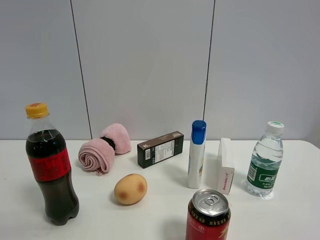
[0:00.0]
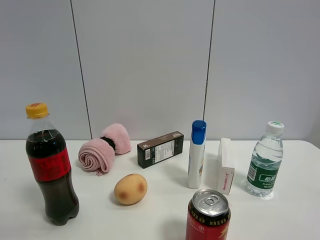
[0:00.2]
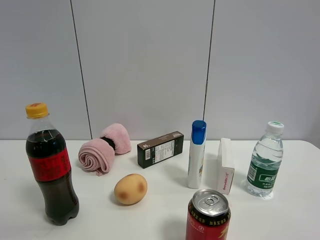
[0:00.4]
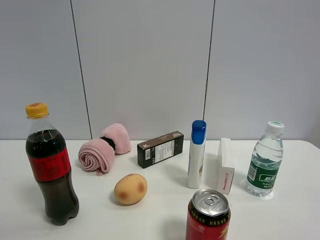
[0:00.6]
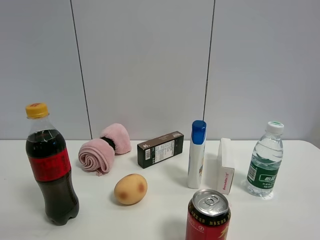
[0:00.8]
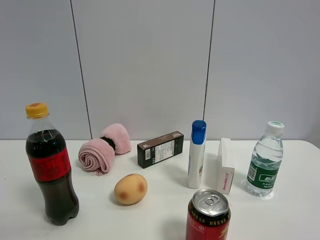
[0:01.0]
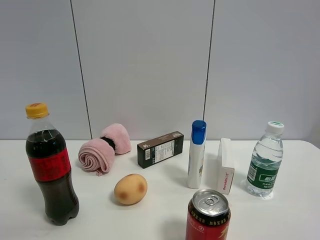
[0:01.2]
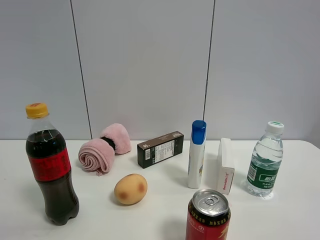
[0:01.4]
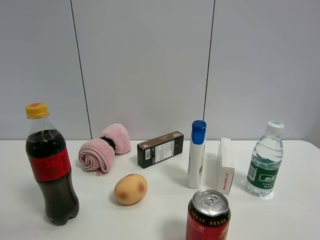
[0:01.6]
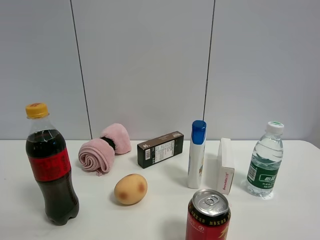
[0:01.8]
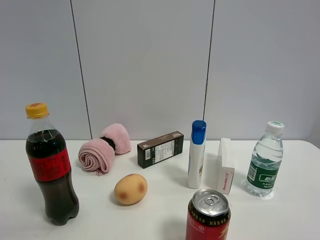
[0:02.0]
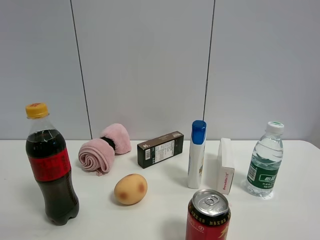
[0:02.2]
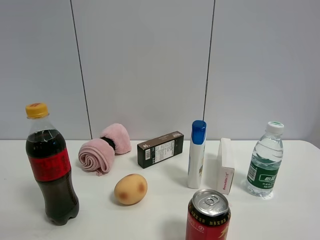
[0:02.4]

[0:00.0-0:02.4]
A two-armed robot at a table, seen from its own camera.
Task of the whole recording: the gripper move the object.
0:01.2 to 0:02.4: Neither gripper changes place.

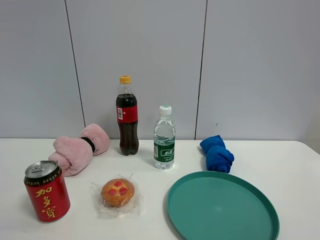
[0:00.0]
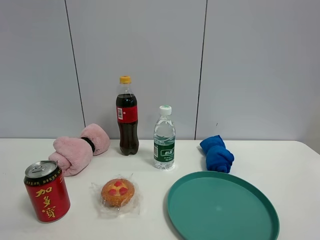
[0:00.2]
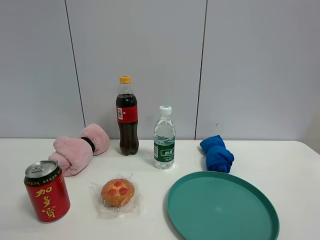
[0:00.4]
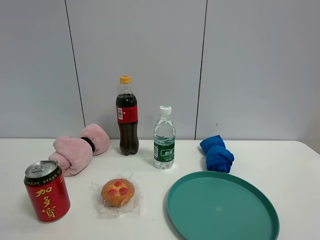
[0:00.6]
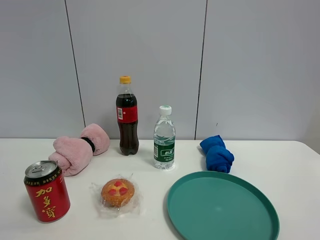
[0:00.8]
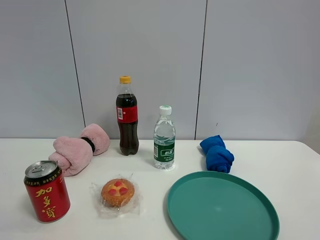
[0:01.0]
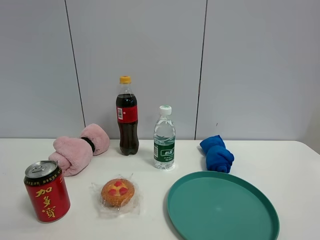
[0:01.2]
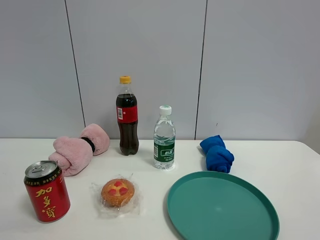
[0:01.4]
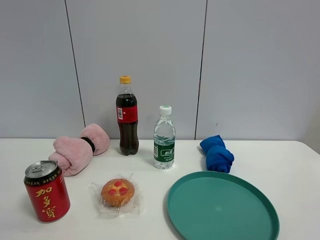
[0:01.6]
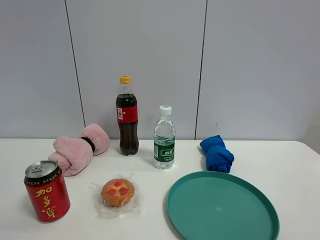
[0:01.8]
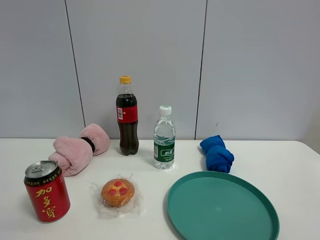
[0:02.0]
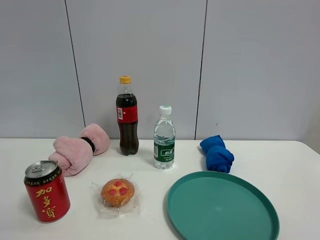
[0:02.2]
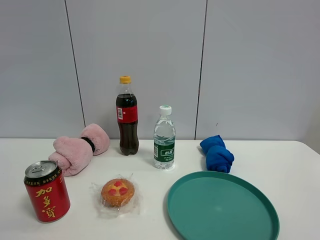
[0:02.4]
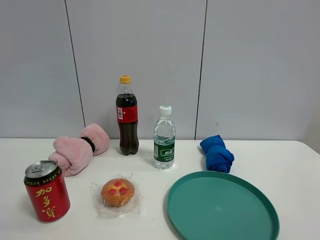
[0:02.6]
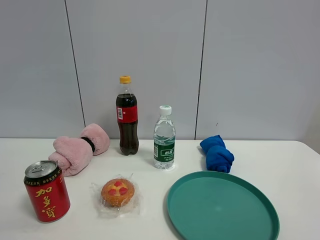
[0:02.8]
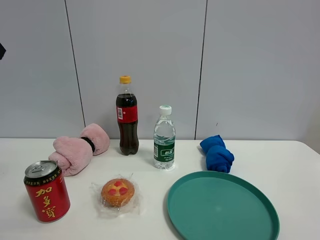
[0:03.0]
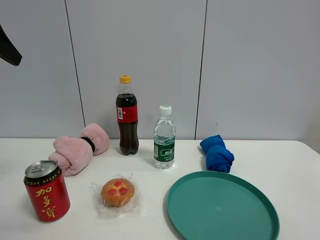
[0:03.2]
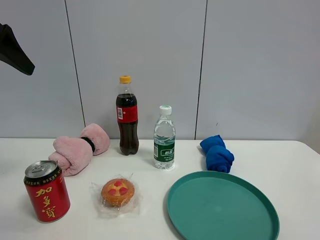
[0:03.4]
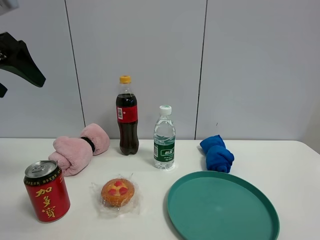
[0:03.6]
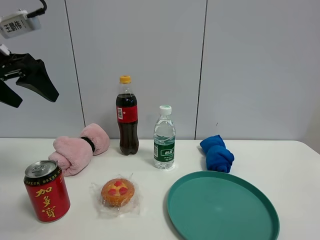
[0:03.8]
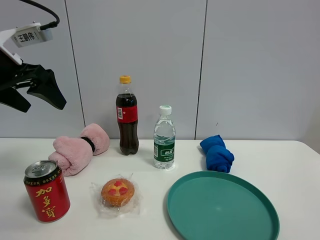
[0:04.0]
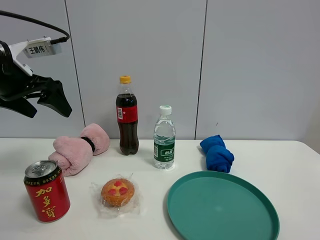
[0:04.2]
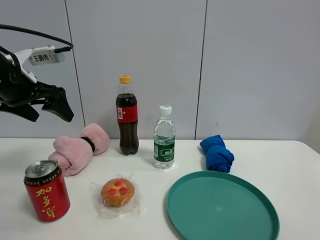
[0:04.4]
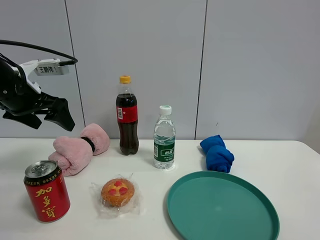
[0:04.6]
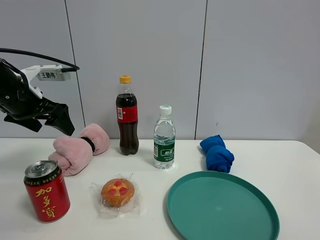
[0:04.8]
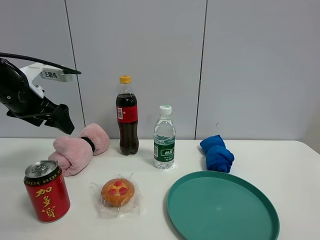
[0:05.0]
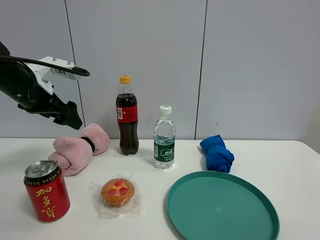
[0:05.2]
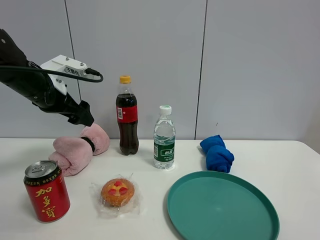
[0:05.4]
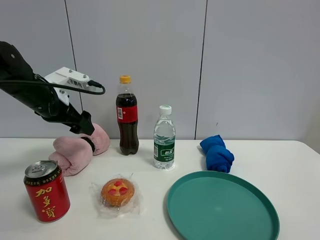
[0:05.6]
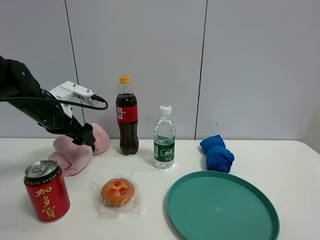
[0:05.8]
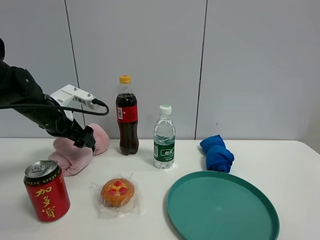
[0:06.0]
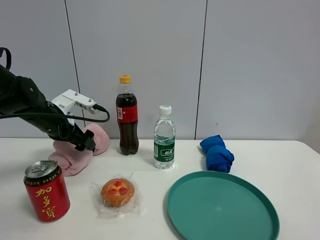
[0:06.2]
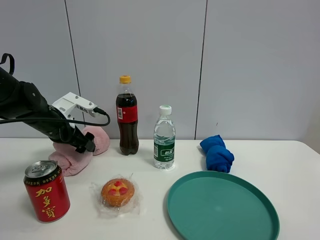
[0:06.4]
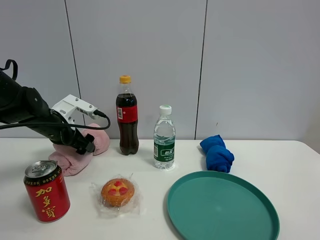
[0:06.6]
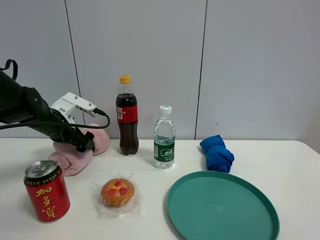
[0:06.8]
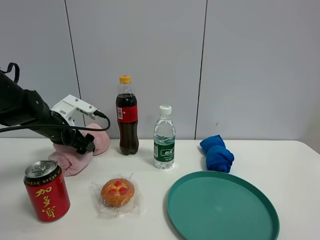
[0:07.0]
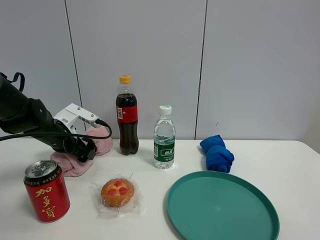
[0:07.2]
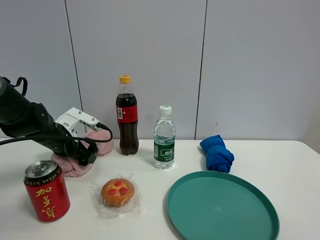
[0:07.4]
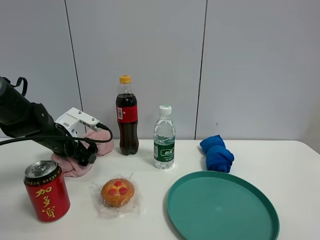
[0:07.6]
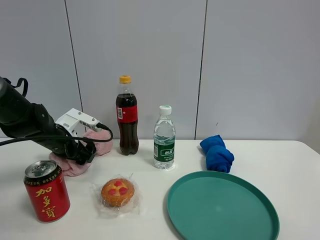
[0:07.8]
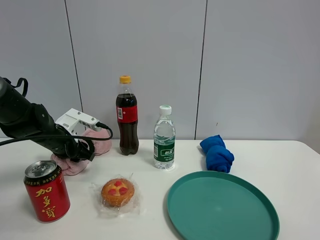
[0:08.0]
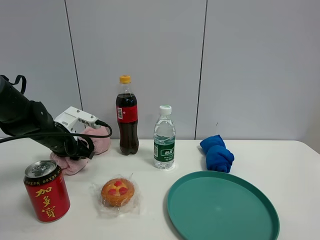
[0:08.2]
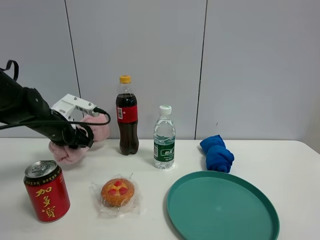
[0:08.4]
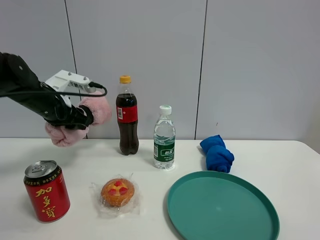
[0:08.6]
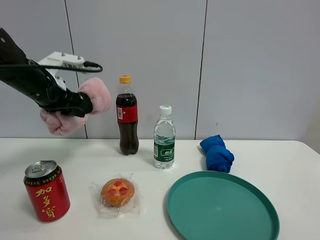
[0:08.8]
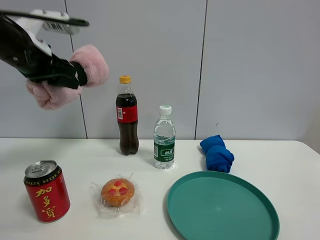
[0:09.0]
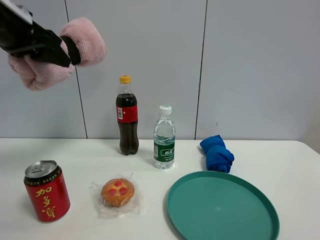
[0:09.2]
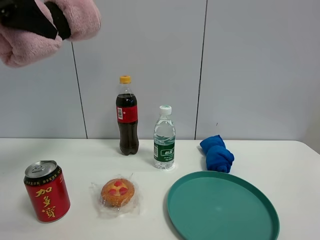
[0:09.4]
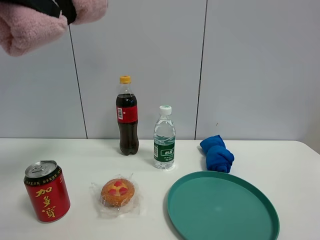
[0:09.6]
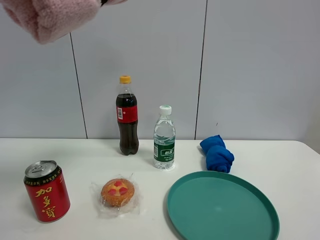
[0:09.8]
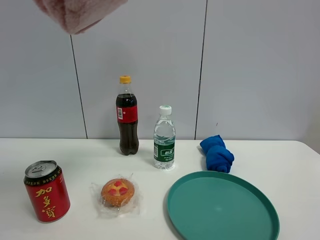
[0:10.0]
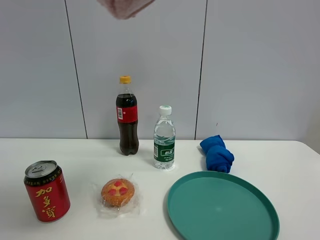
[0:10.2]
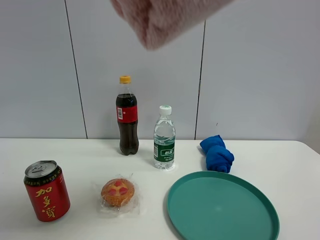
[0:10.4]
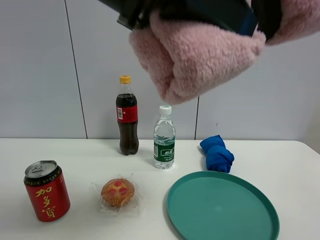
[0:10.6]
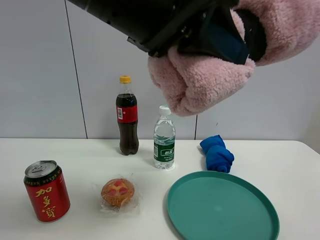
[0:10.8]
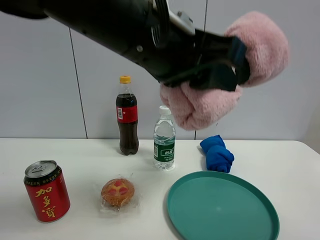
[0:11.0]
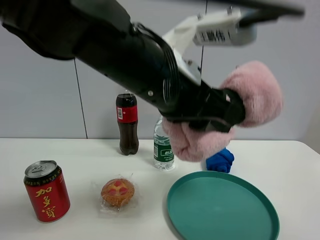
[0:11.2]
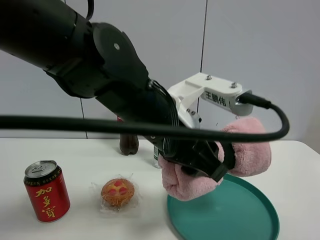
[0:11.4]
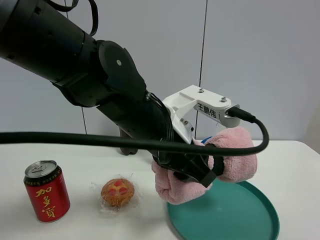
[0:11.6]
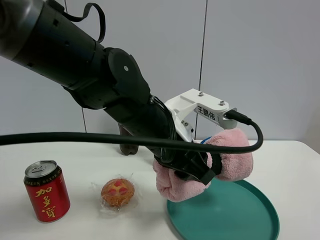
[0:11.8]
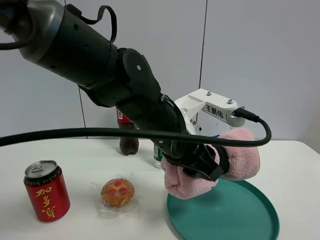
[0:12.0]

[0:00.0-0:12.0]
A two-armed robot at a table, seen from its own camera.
Task of the whole recording: the gripper move the object.
Step, 0:00.0 to 0:08.0: Grasp the pink towel with the left gripper.
0:00.0 to 0:01.6: Neither gripper changes place.
0:03.0 to 0:04.4: The left gripper heads downward and forward, covering roughly 15 cm.
0:04.4 to 0:06.0: The left gripper moves downward and forward, some 10 cm.
0:06.0 to 0:07.6: The left gripper goes some 5 cm downward.
0:07.6 to 0:09.0: The left gripper goes some 20 cm upward, and closes its fingers.
0:09.0 to 0:10.4: The left gripper heads backward, to the right and upward, covering approximately 25 cm.
0:10.4 to 0:12.0: The left gripper moves downward and forward, approximately 25 cm.

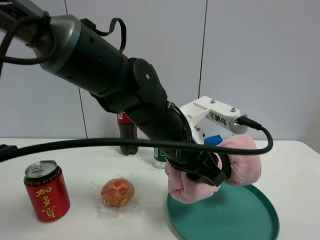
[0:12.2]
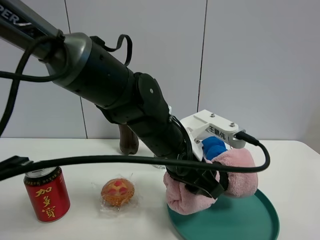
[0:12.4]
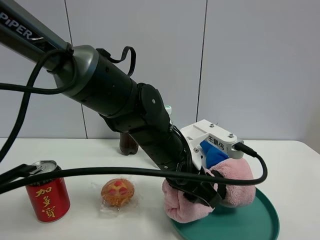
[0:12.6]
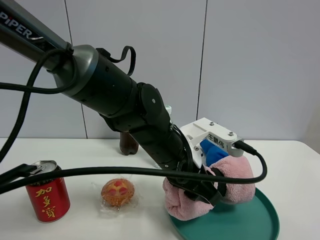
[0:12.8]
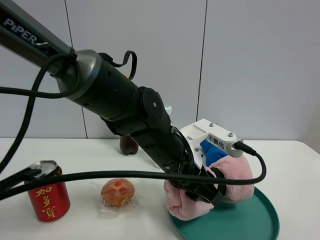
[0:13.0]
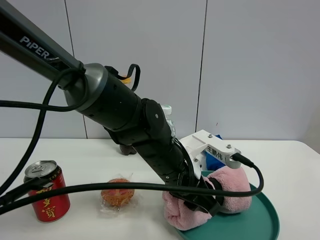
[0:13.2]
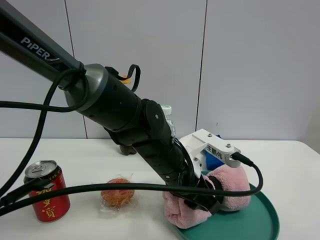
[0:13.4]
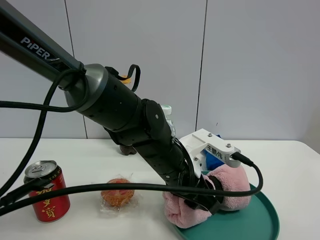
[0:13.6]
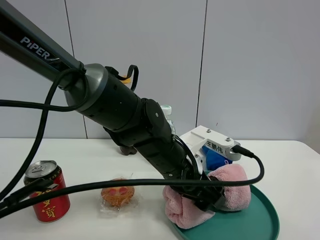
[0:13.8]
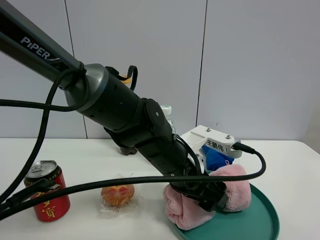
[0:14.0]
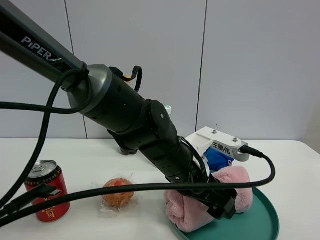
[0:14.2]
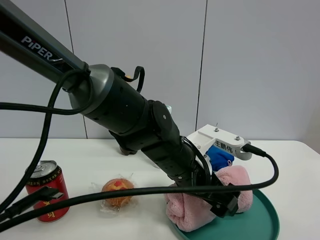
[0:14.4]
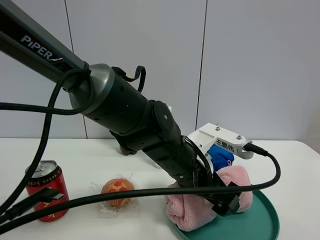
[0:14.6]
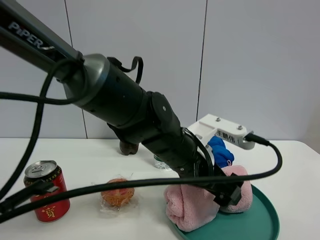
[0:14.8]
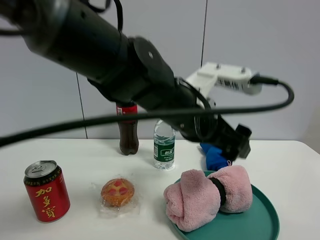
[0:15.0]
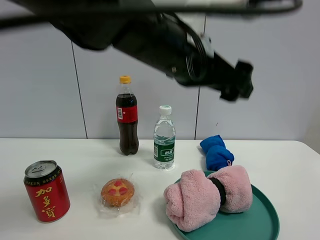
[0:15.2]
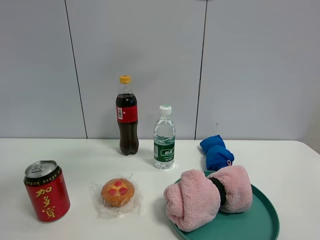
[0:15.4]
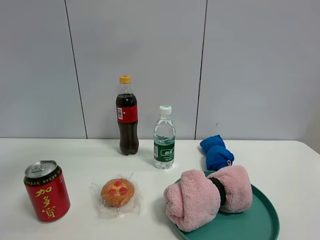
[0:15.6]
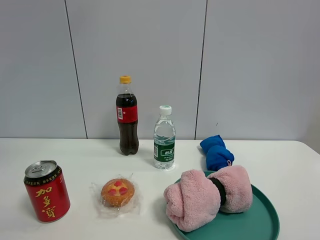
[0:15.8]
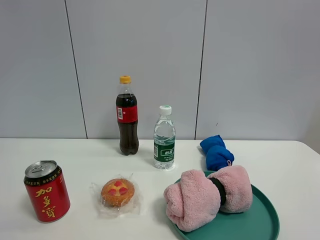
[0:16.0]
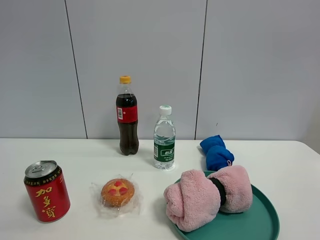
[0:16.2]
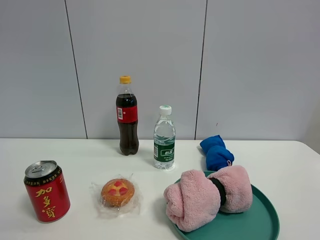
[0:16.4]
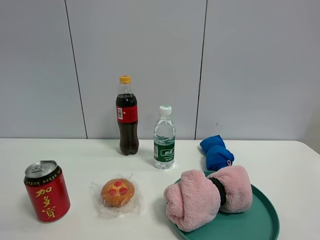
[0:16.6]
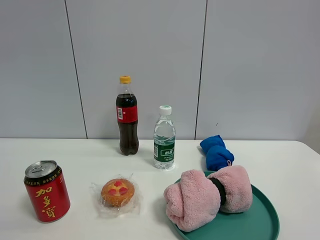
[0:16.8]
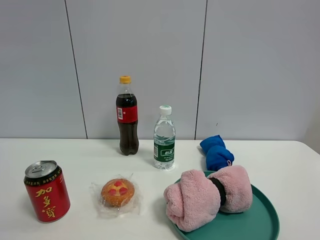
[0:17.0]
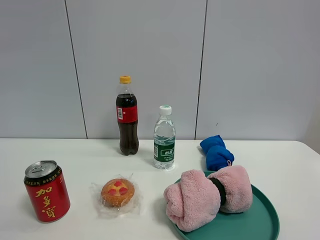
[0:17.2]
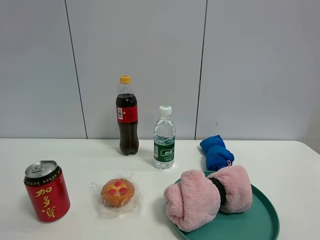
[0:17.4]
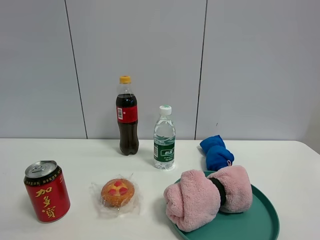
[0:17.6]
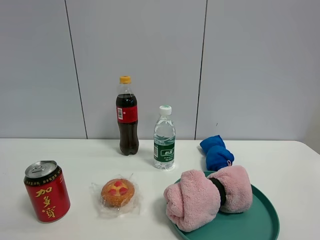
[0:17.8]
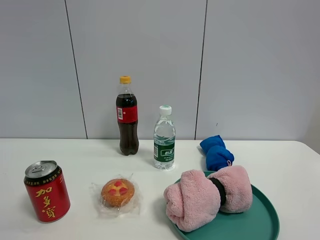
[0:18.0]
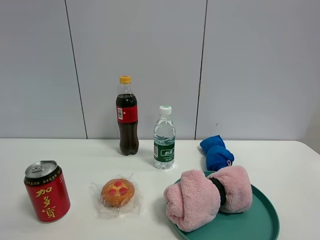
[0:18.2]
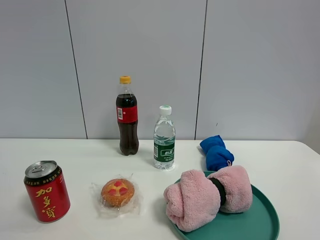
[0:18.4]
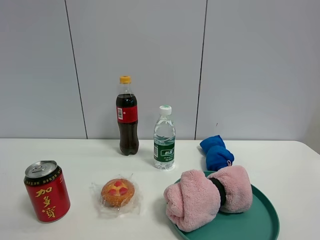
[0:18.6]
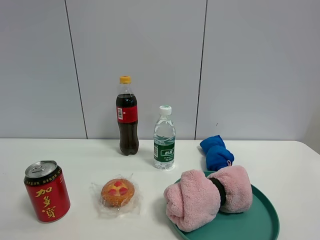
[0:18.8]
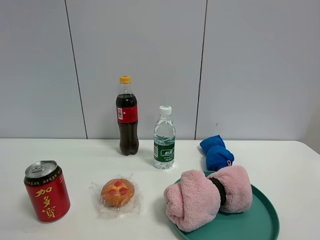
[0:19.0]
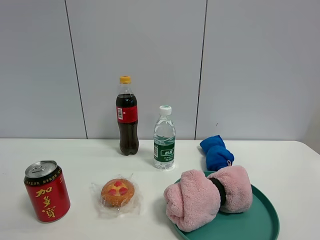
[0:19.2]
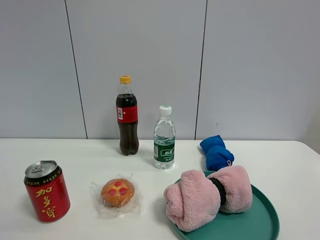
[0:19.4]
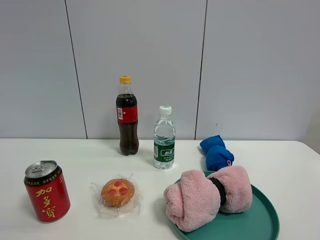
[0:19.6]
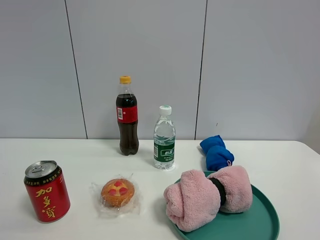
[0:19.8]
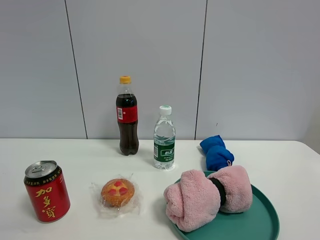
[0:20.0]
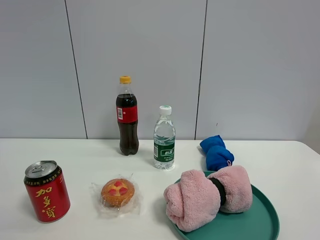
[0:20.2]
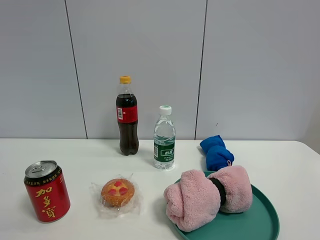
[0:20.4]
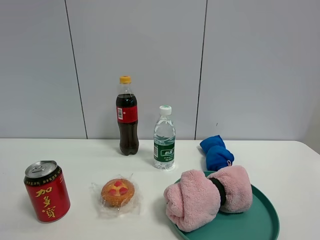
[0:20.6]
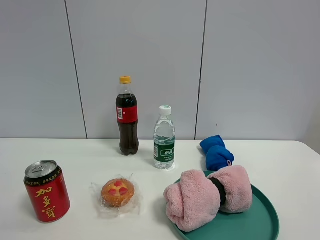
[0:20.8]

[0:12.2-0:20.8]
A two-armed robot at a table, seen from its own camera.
Task of the whole recording: the gripper move the object.
Step, 0:12.2 to 0:14.4: Place the pink towel into the green plate with the left gripper.
0:12.2 to 0:13.6: The left gripper travels downward by roughly 5 cm.
0:13.6 to 0:15.0: The left gripper travels upward by about 10 cm, and opens its fingers.
0:15.0 to 0:16.6: The left gripper goes roughly 50 cm to the left, upward and backward.
